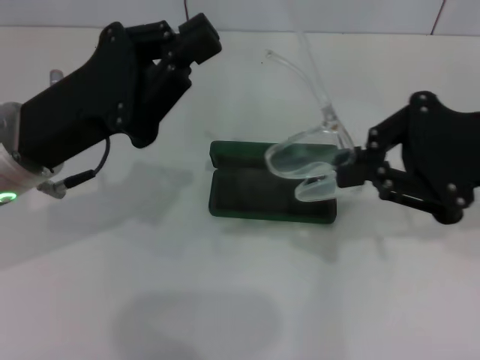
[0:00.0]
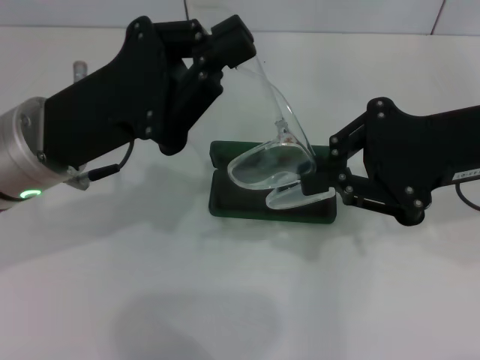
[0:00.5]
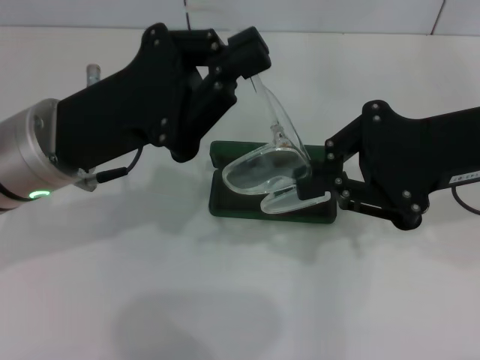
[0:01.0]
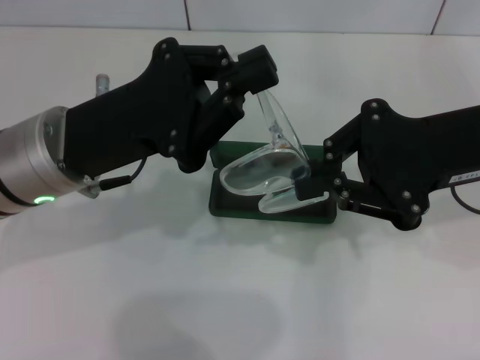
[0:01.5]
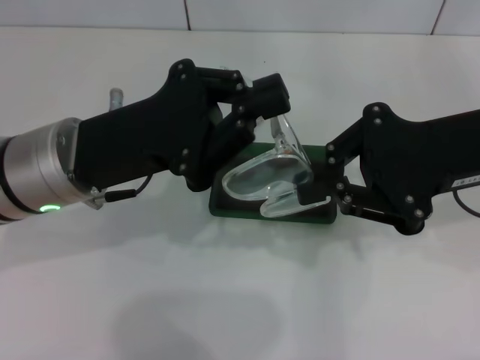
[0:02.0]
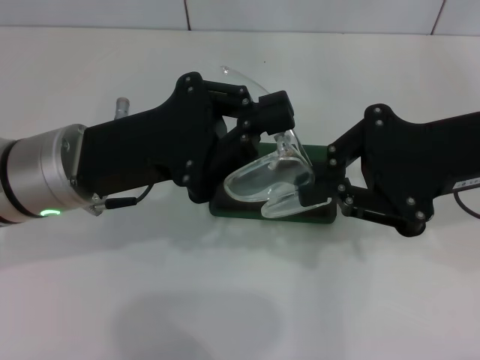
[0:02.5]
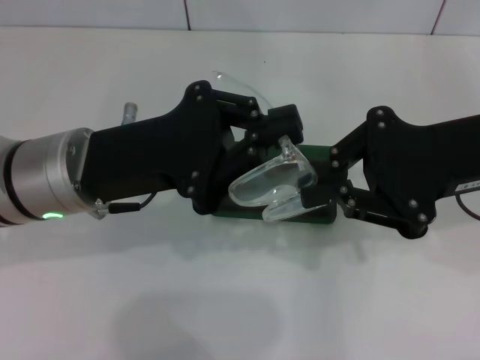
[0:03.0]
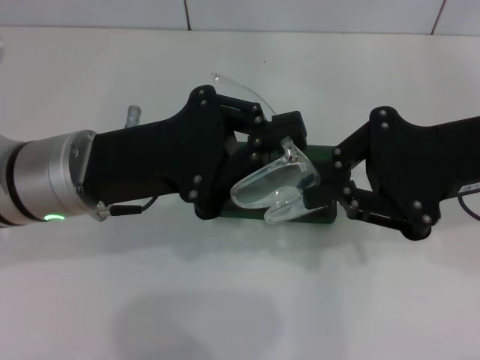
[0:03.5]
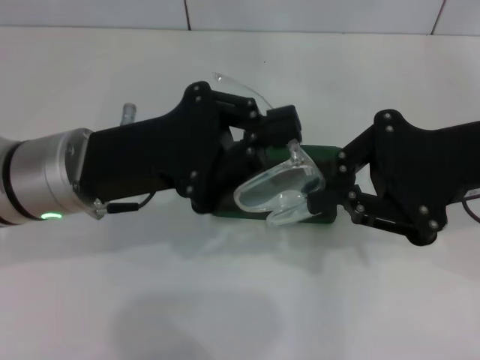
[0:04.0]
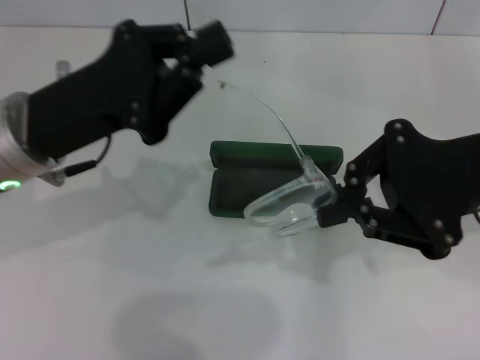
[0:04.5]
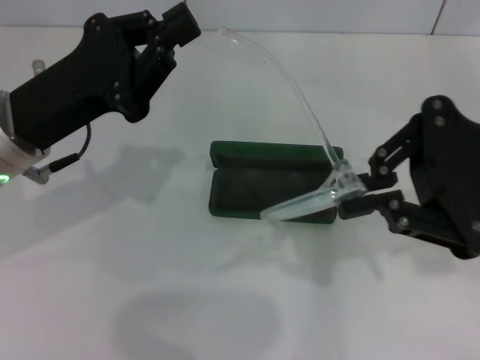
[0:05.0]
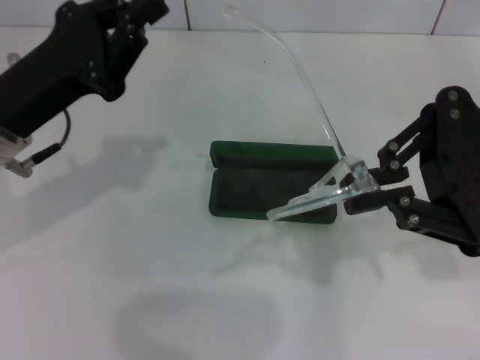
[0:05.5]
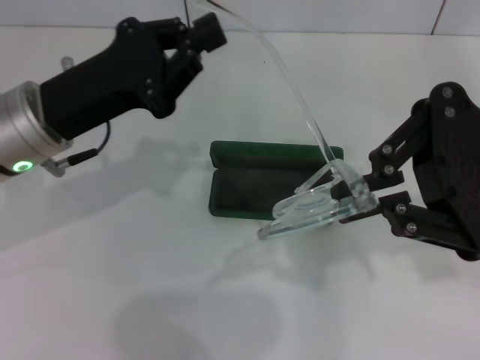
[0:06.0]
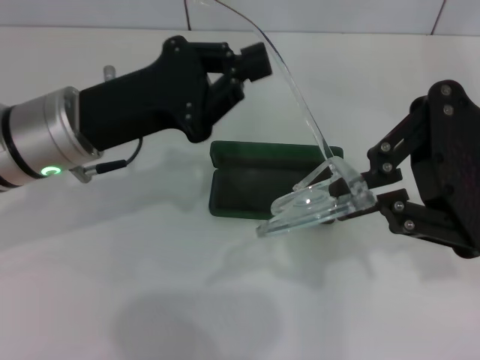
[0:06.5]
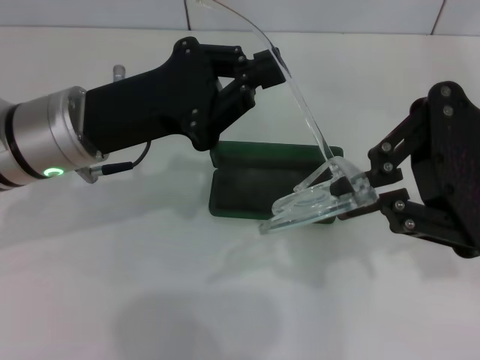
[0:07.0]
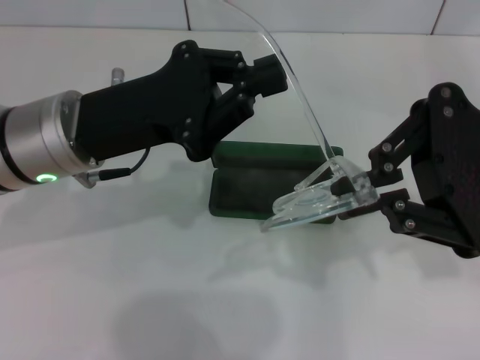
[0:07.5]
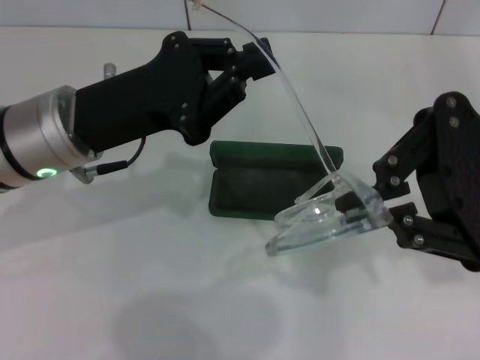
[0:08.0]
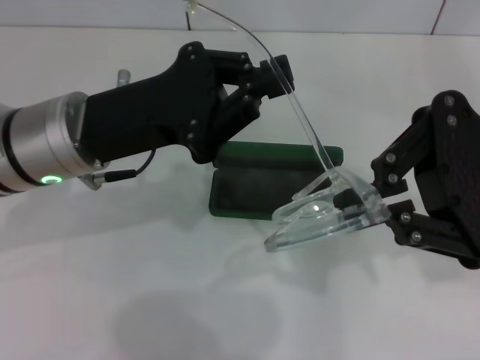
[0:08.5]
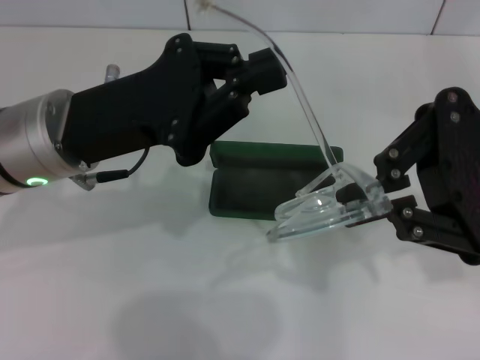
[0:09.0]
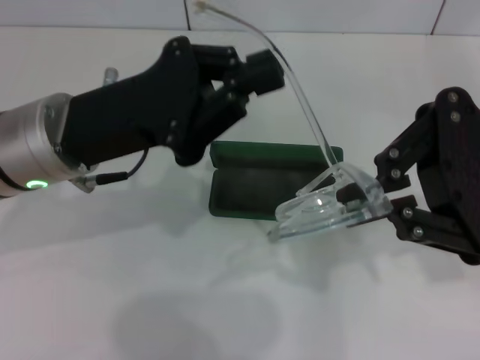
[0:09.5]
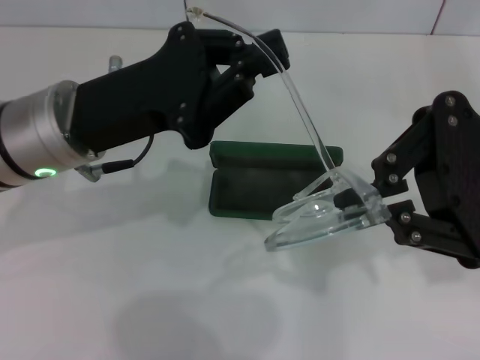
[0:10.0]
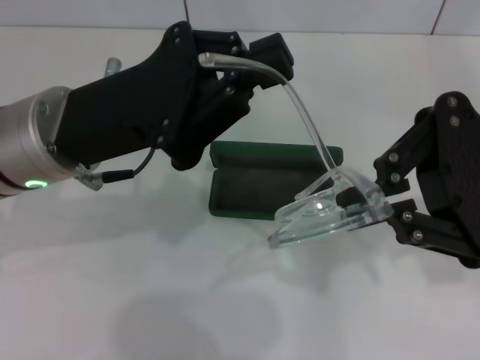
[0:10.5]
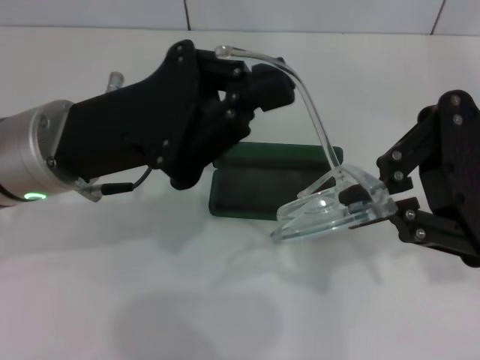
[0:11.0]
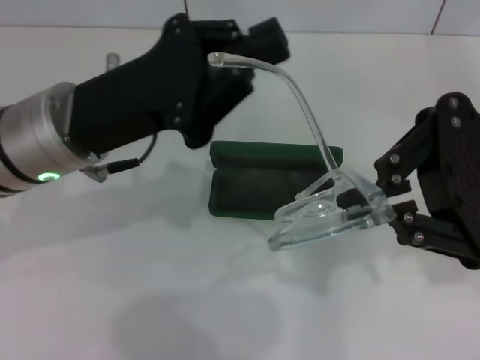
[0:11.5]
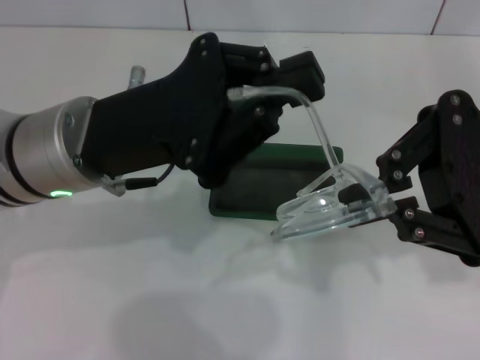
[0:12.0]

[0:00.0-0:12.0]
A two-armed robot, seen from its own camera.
0:02.0 to 0:04.0: There are only small adjustments of the grippers.
0:04.0 to 0:06.0: The right gripper moves approximately 5 cm.
0:06.0 to 0:08.0: The grippers move only a little.
0:08.0 to 0:12.0: The grippers stay close to where they were, moving slightly.

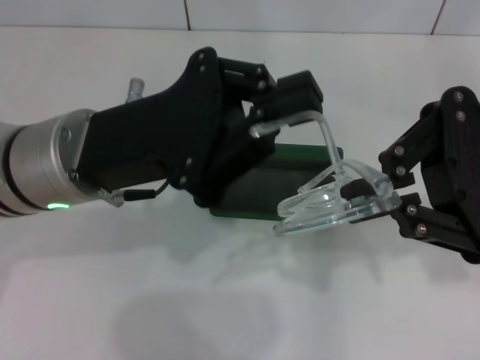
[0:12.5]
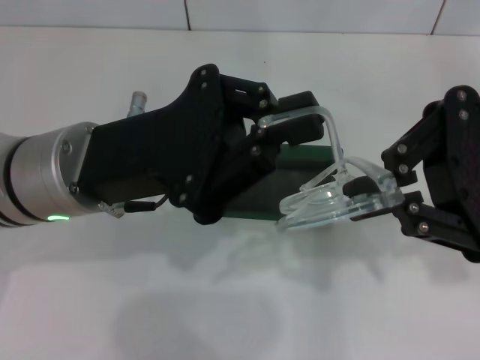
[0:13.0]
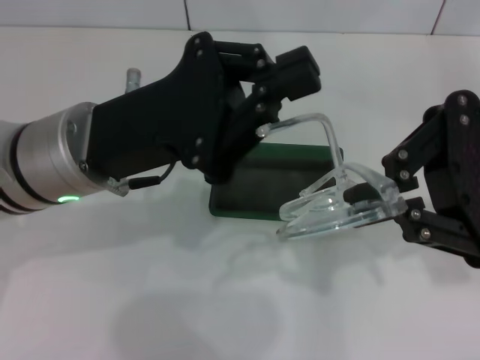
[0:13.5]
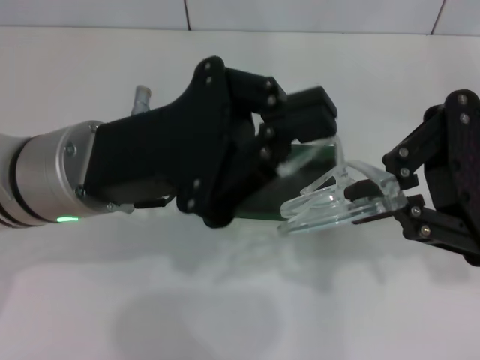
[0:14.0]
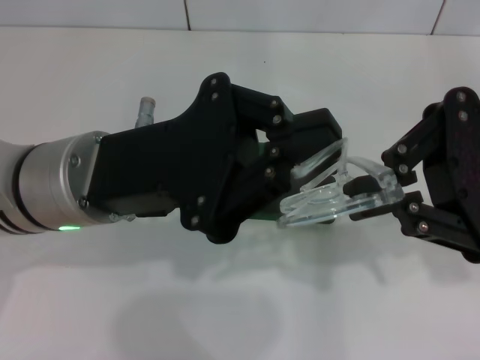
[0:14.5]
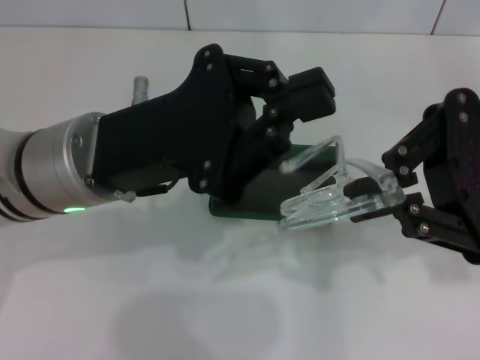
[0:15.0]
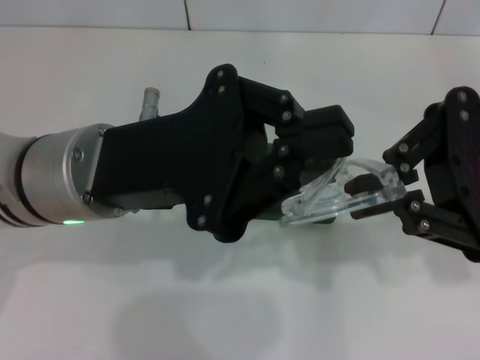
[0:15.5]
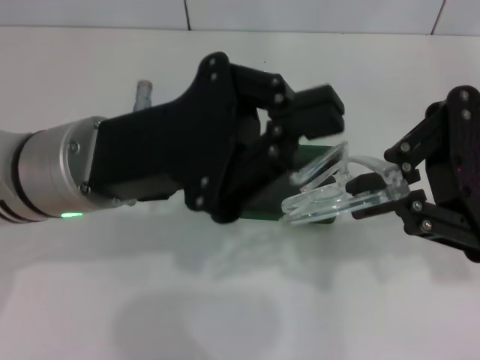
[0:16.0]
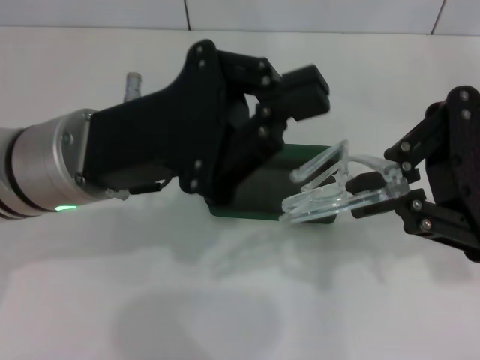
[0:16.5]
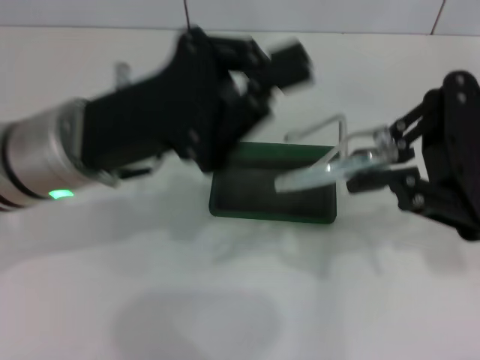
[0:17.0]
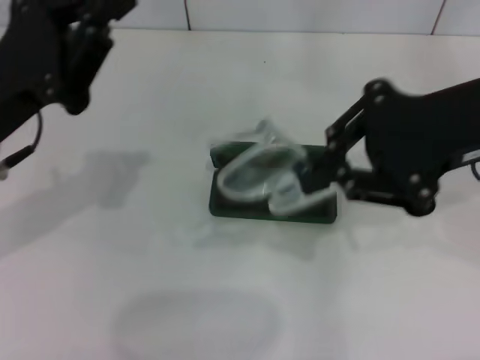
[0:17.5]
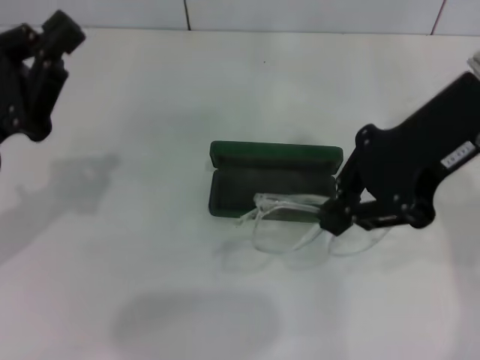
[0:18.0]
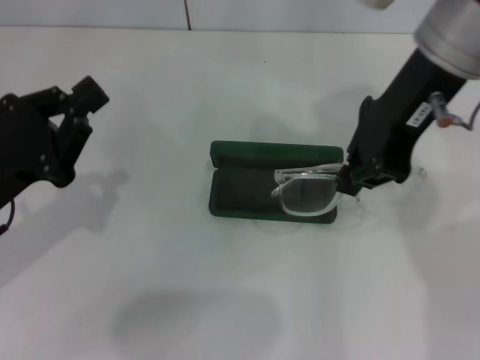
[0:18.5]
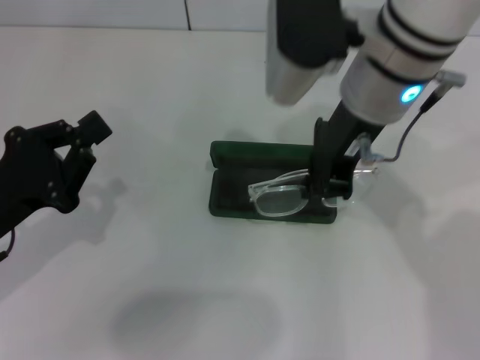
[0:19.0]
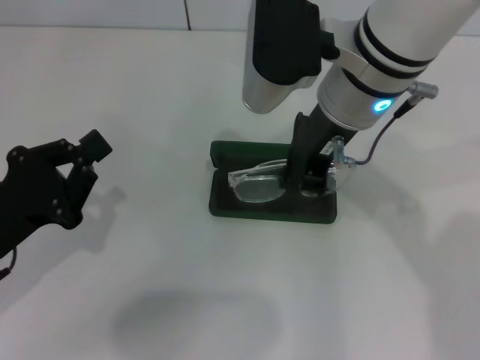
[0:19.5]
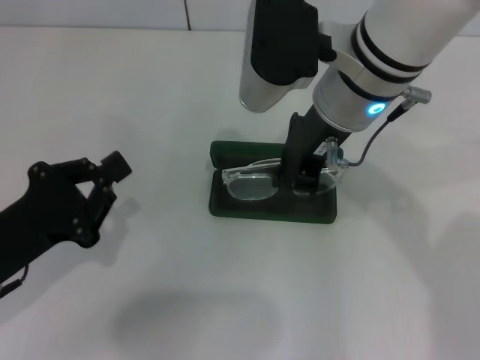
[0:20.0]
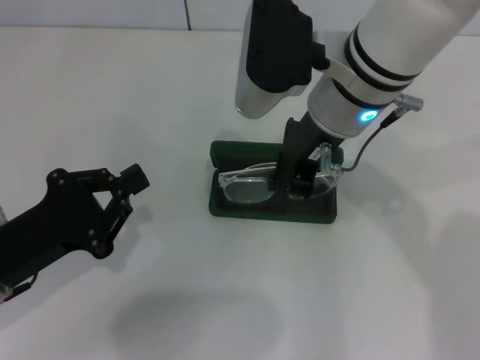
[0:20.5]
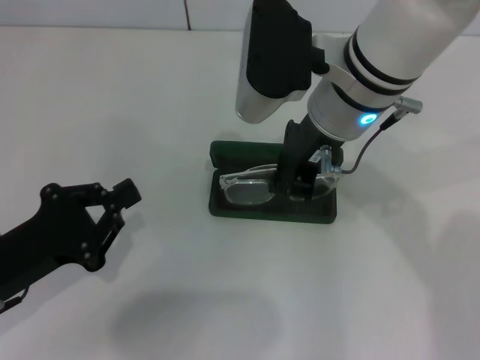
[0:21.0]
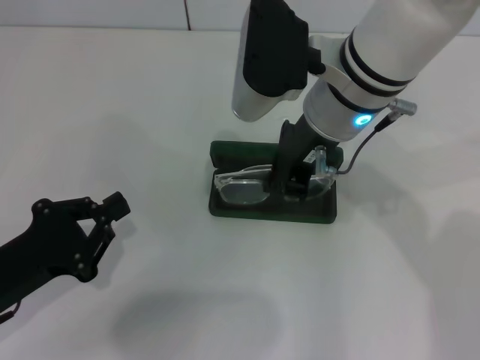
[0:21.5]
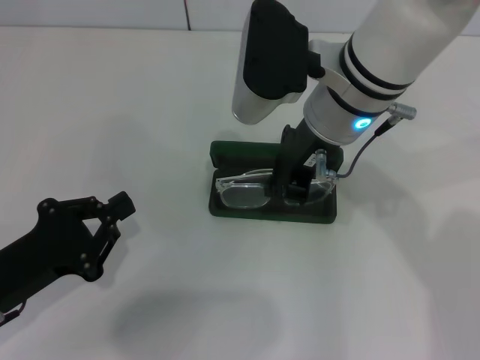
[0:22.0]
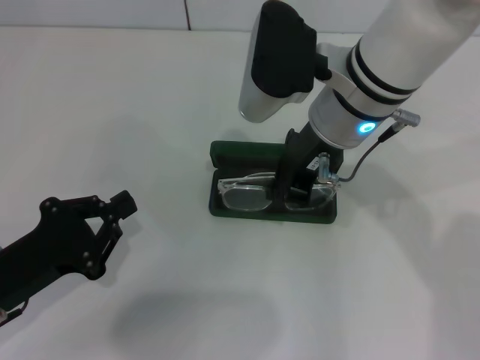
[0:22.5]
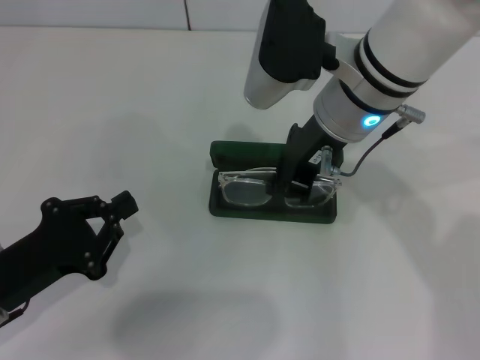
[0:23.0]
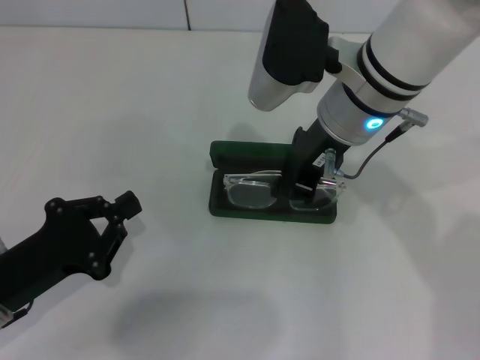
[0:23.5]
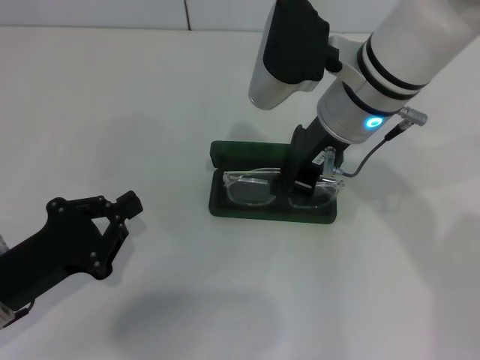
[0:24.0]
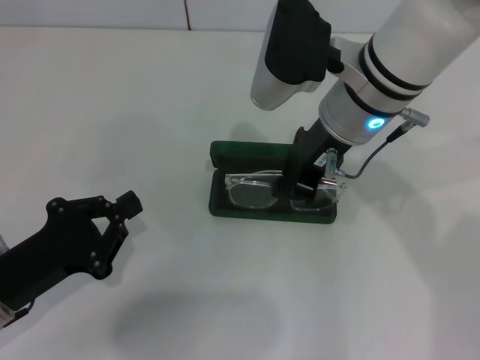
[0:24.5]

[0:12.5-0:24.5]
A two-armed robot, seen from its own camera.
Step, 0:12.5 to 0:16.5: Fold the frame with your left hand.
0:12.5 to 0:16.5: The grippers move only a little.
0:16.5 to 0:18.5: The right gripper heads to the left, forward and upward, covering roughly 15 cm; the left gripper is displaced to the left and downward by roughly 15 cm.
0:18.5 to 0:20.5: The right gripper travels downward and to the left by approximately 10 cm.
0:20.5 to 0:22.5: There are only small adjustments of the grippers.
0:22.5 to 0:24.5: Both grippers stay put.

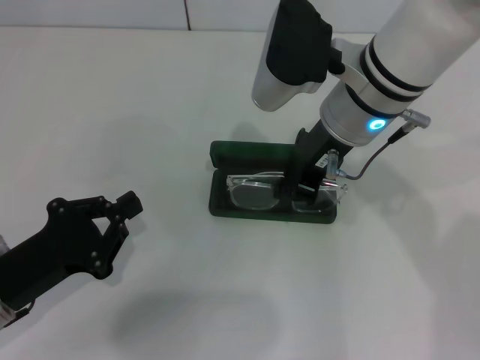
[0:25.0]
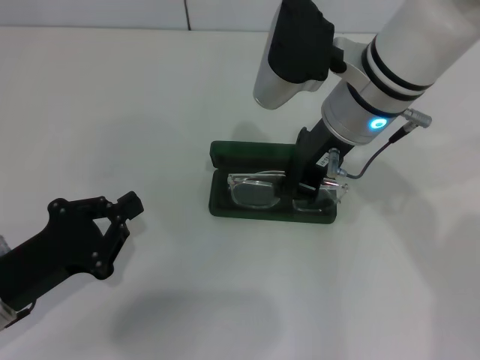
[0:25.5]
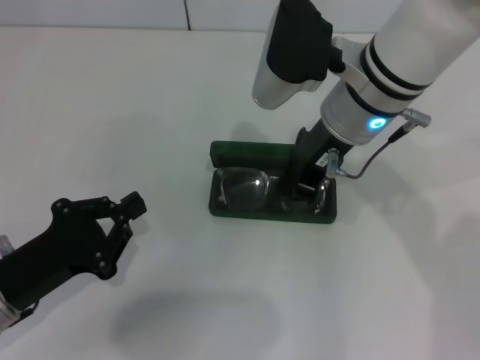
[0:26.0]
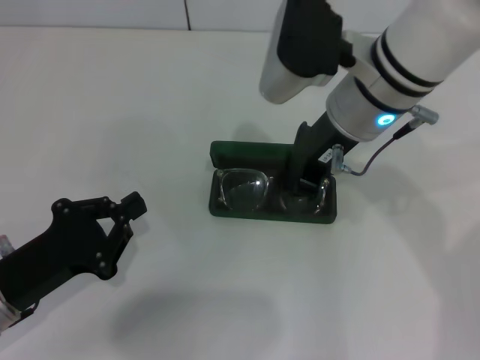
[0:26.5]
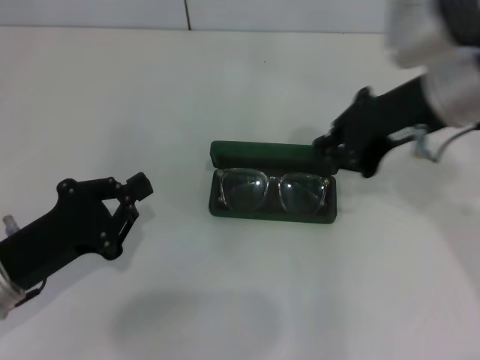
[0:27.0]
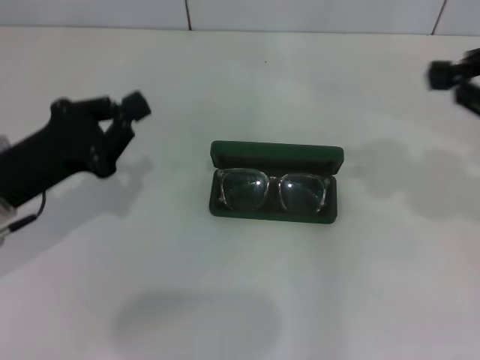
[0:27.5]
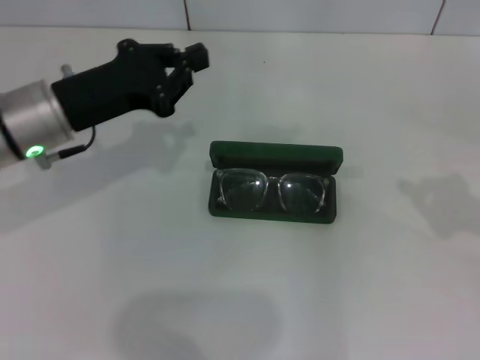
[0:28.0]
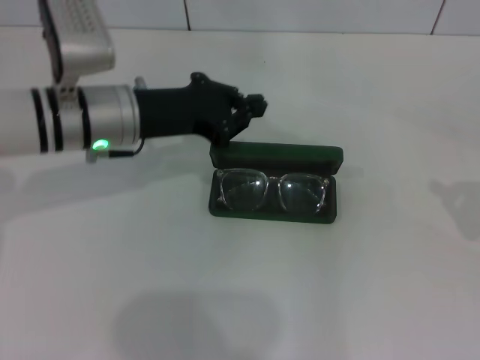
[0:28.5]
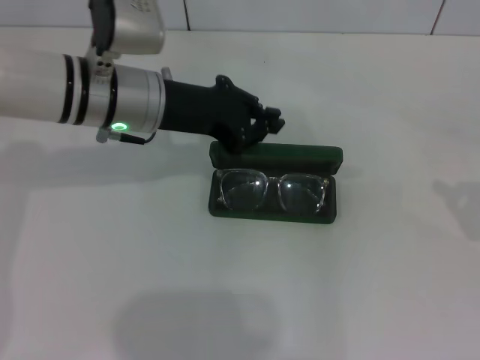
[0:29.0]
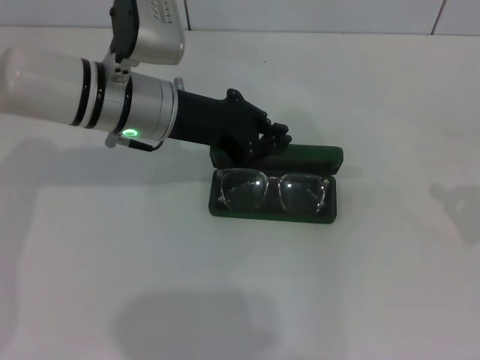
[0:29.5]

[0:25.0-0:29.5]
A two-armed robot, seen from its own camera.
0:25.0 to 0:27.0: The right gripper heads to the right, covering approximately 10 cm.
0:27.0 to 0:29.5: The left gripper travels forward, to the right and upward by some 25 cm; the right gripper shifts about 25 cm to the right and backward.
